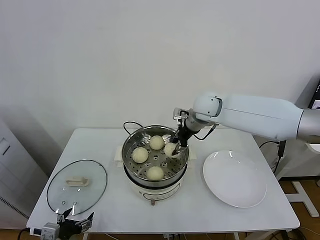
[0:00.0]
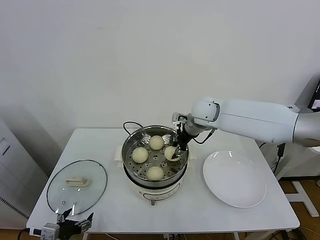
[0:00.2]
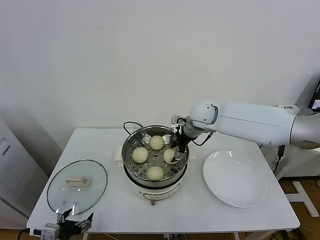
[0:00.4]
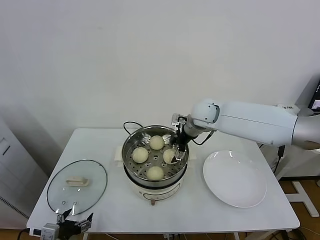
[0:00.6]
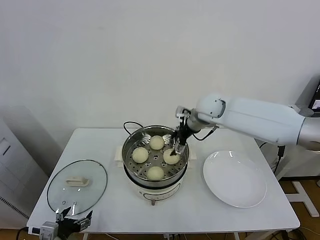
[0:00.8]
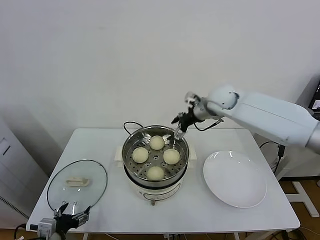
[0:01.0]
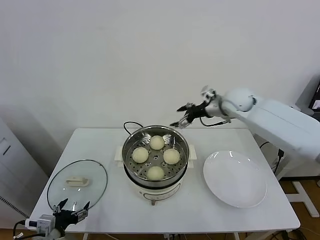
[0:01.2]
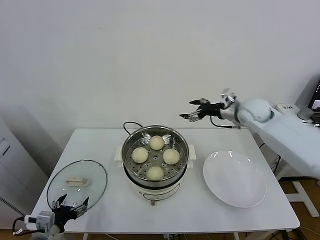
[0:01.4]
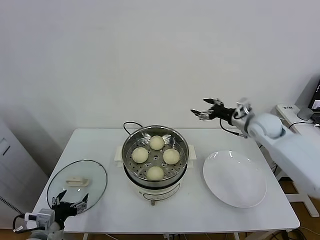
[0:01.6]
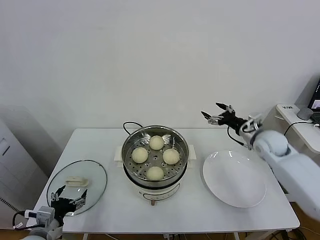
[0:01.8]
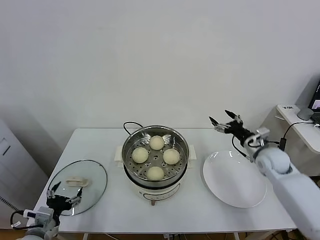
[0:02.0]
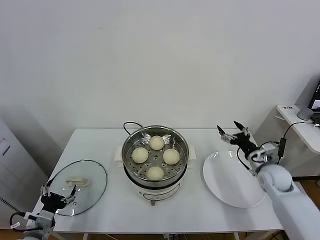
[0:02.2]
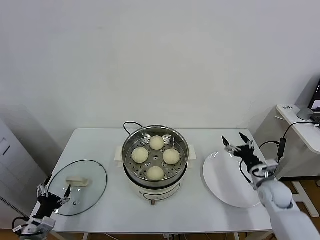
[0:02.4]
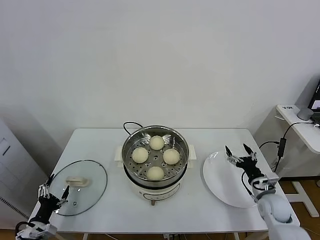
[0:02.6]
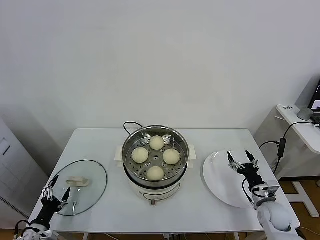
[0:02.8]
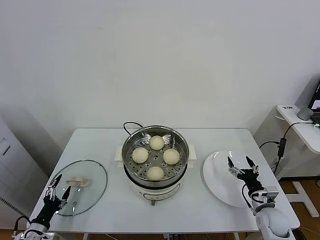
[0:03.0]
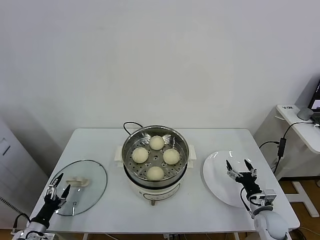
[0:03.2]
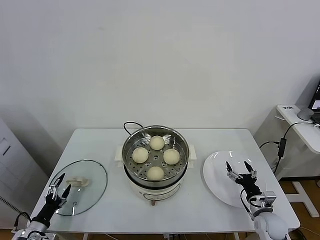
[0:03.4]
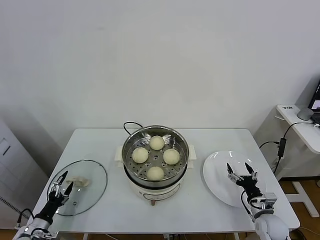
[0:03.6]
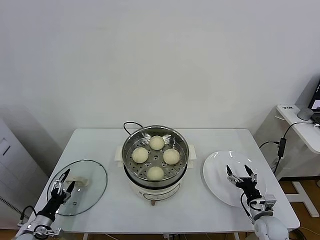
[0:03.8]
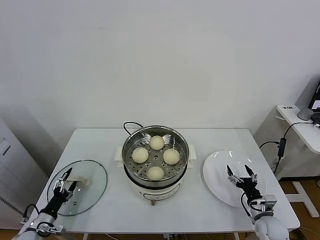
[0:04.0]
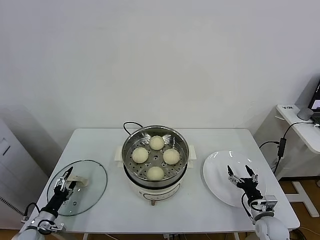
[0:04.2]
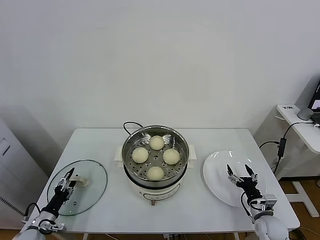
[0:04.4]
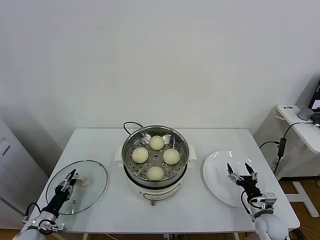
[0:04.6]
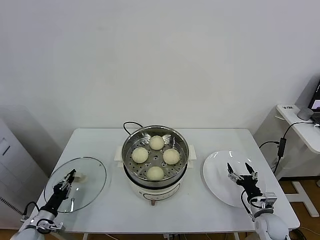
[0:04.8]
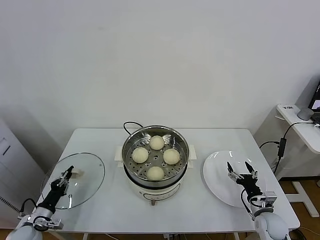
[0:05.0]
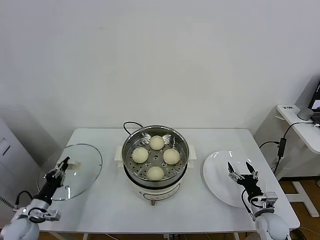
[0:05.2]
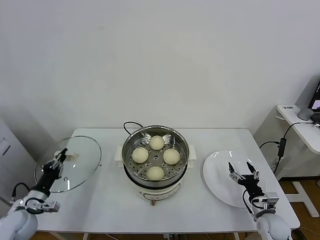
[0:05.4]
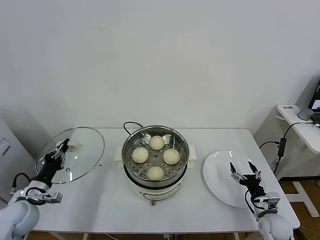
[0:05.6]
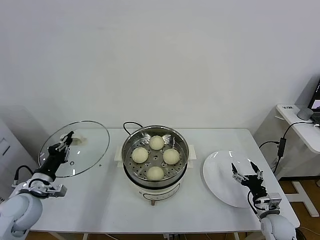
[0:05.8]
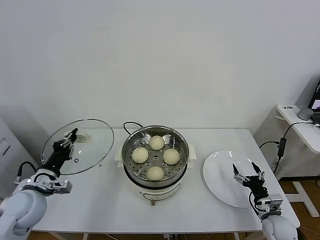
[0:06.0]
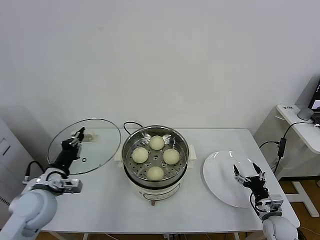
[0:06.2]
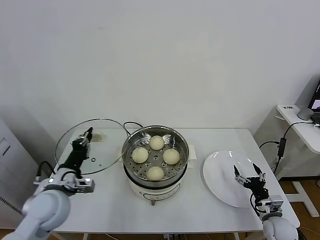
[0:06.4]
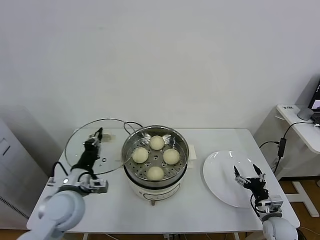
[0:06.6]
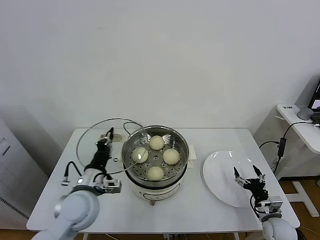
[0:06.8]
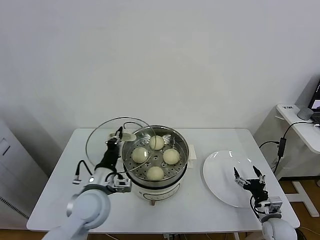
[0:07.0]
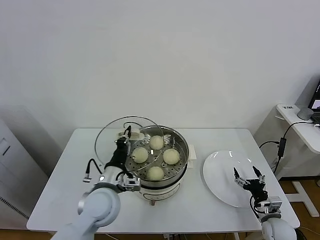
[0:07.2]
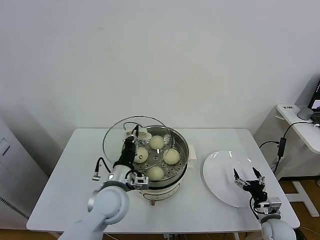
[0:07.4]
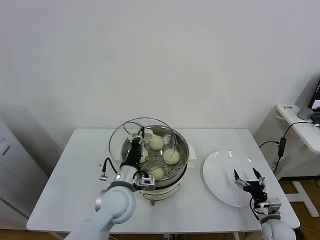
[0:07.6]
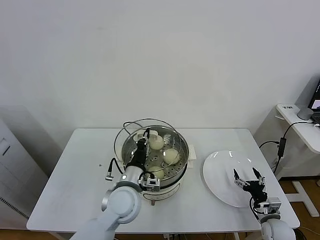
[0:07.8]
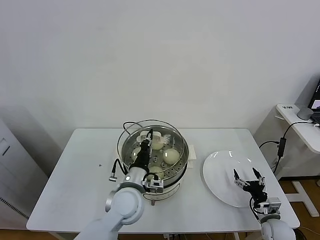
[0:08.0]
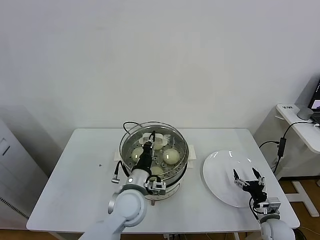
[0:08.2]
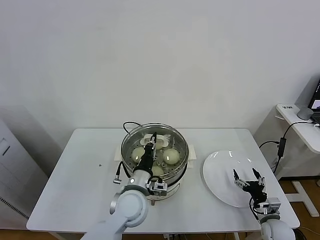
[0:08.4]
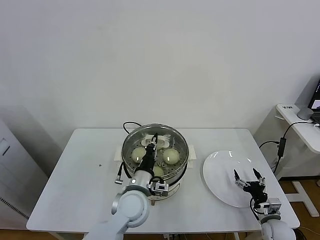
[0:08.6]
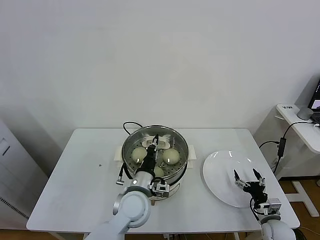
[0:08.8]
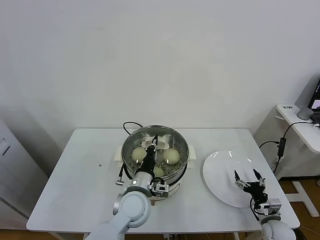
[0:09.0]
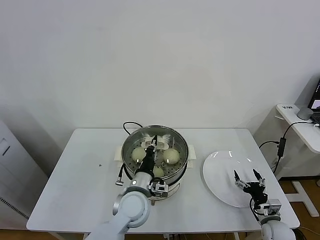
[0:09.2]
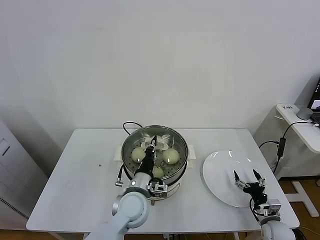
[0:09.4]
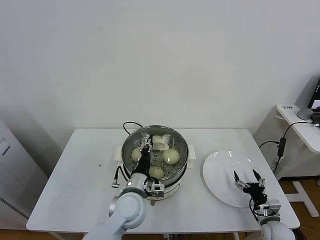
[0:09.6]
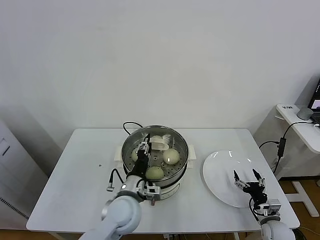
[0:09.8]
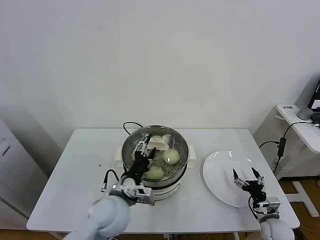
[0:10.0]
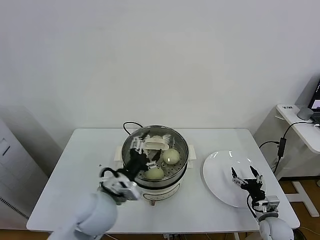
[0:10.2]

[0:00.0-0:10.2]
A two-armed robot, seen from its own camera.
Task of the whole recording: take steamed baozi put them in steamer.
Step, 0:00.8 to 0:05.0: Grasp the pot lid with left gripper.
Step, 0:05.2 to 0:10.0: Place the pot lid on the steamer with left gripper.
0:00.0 to 0:01.4: The right gripper shifts some 15 cm to the right, and opens up.
0:01.4 to 0:03.0: The right gripper travels downward and backward by roughly 40 cm, while the left gripper goes roughly 15 cm downward and to the left.
0:03.0 to 0:04.4: The left gripper ends up about 5 cm from where it was.
0:04.4 to 0:05.8: The left gripper travels upward by some 20 cm, and closes.
0:05.8 to 0:07.2: The left gripper moves to the right, roughly 25 cm.
0:07.2 to 0:08.8: The left gripper shifts about 10 cm to the right.
0:08.8 to 0:10.2: The left gripper moves to the left and upward, approximately 10 cm, and opens up.

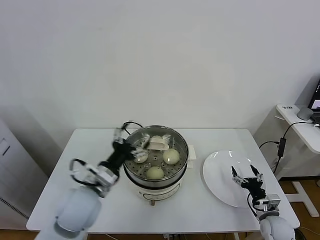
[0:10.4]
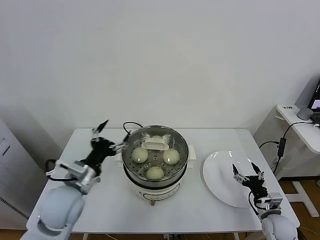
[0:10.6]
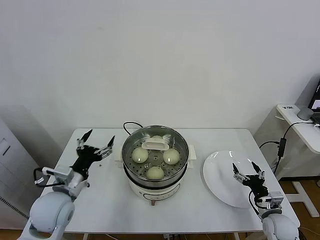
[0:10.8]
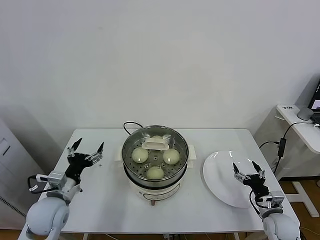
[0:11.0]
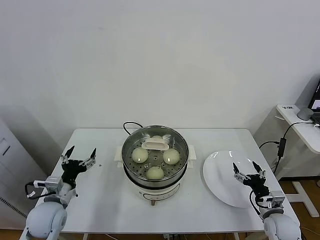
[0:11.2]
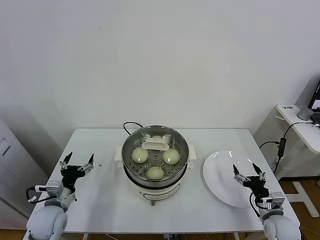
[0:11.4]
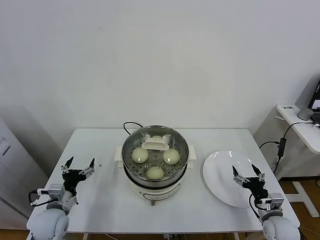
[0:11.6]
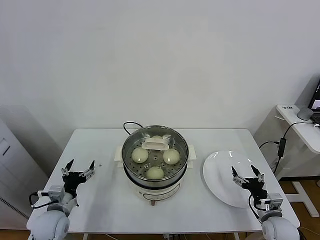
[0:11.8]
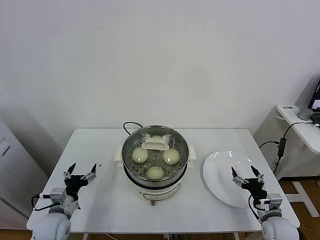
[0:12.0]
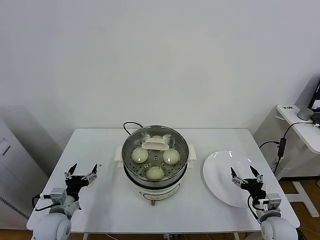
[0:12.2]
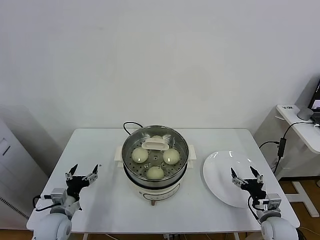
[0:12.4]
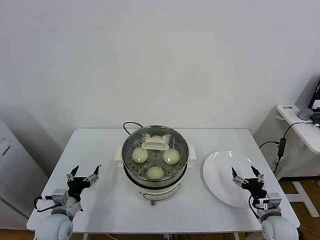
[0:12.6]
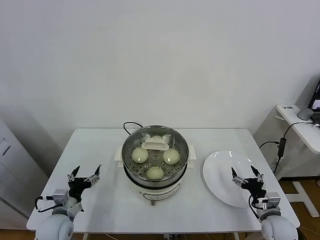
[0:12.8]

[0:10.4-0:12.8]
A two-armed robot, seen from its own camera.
Task of the whole recording: take steamed baozi put them in steamer.
0:10.4 to 0:11.6: The left gripper goes approximately 20 cm to the left and downward.
0:11.6 to 0:12.8: The grippers stay close to where they were, moving slightly.

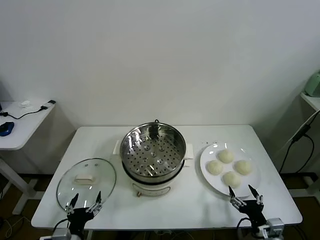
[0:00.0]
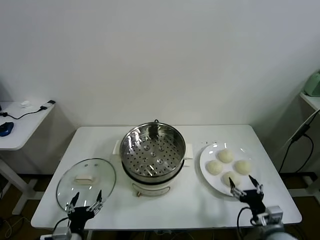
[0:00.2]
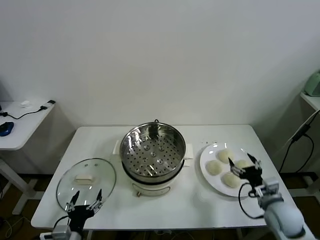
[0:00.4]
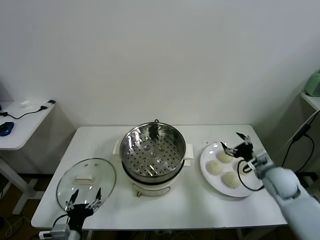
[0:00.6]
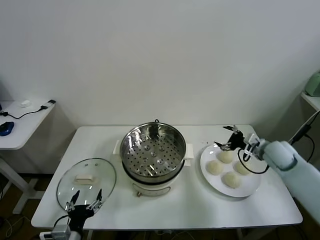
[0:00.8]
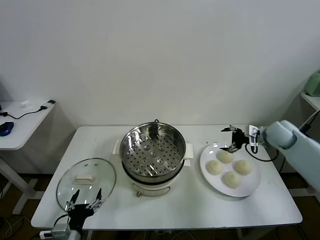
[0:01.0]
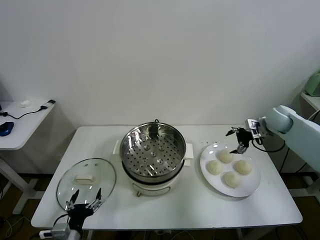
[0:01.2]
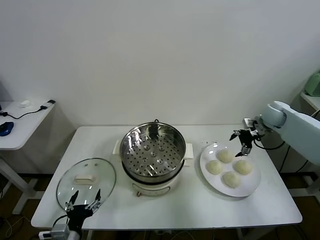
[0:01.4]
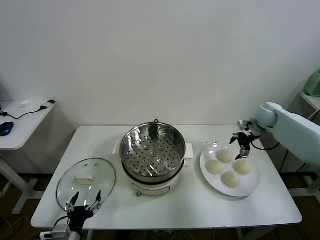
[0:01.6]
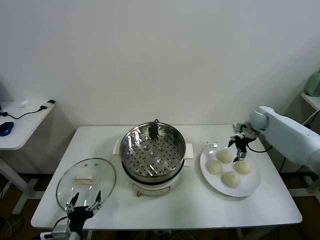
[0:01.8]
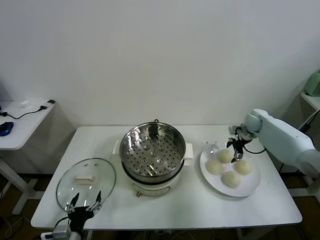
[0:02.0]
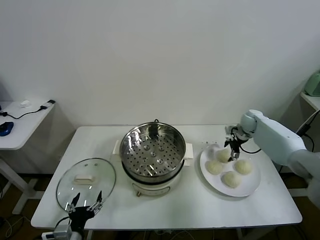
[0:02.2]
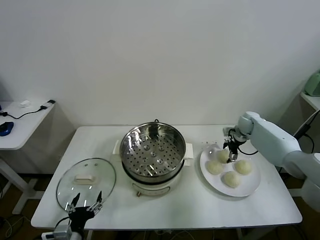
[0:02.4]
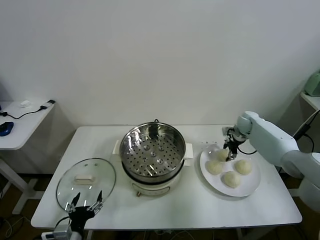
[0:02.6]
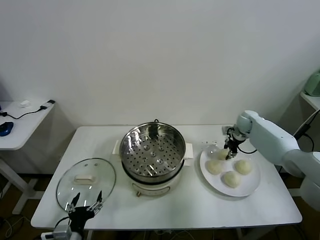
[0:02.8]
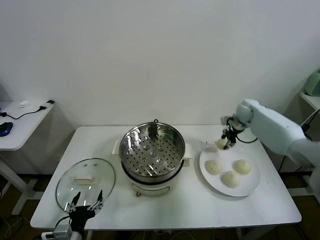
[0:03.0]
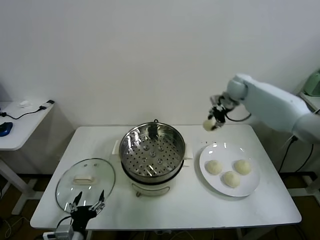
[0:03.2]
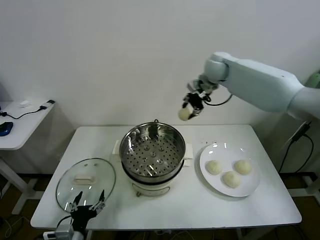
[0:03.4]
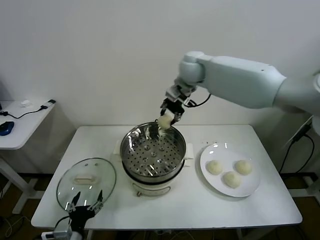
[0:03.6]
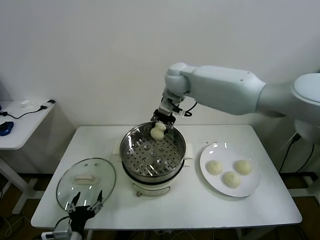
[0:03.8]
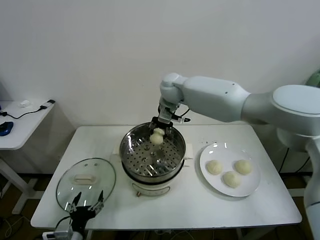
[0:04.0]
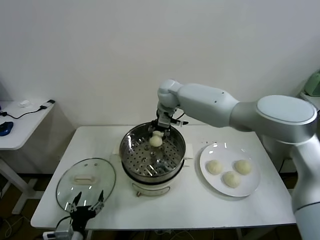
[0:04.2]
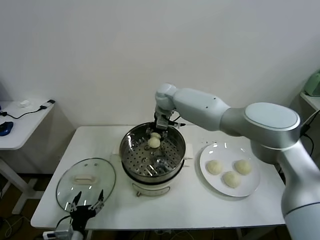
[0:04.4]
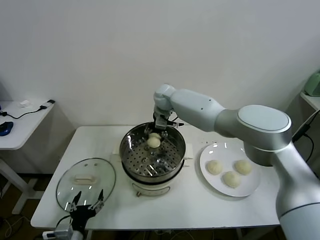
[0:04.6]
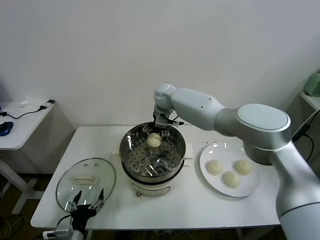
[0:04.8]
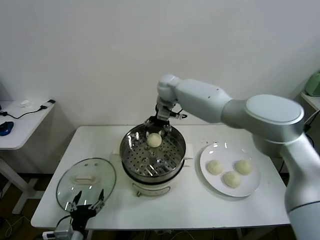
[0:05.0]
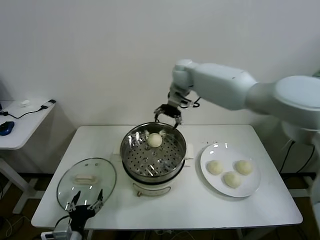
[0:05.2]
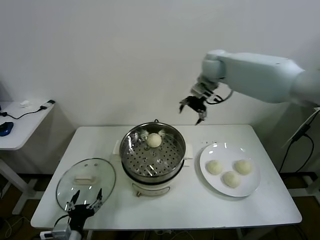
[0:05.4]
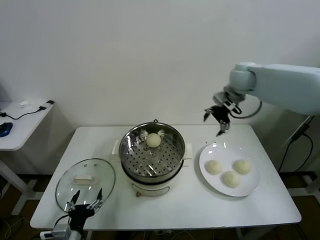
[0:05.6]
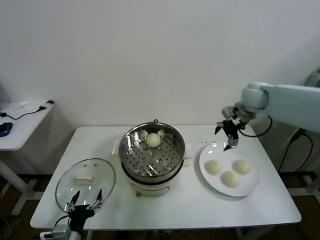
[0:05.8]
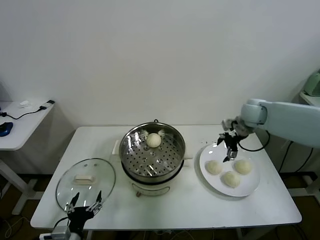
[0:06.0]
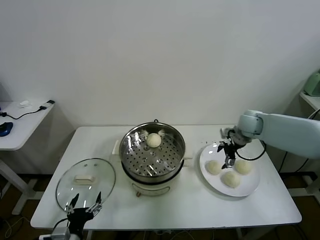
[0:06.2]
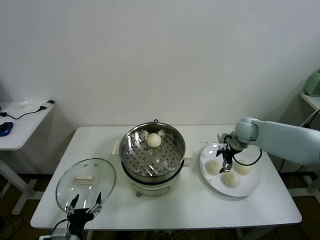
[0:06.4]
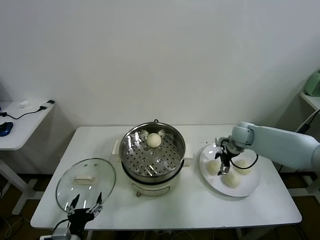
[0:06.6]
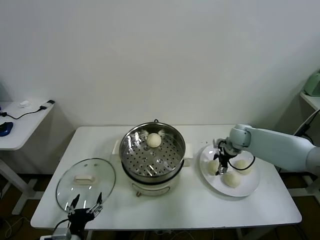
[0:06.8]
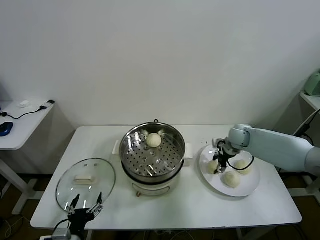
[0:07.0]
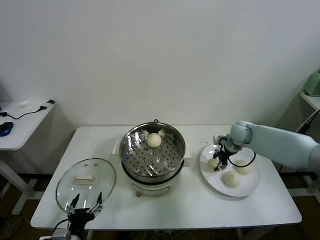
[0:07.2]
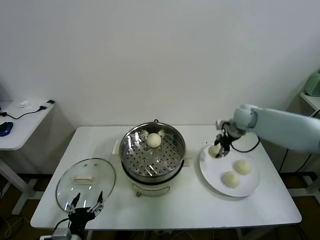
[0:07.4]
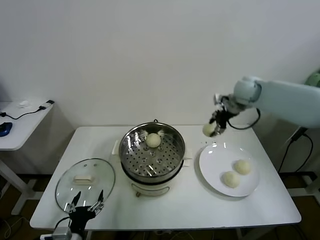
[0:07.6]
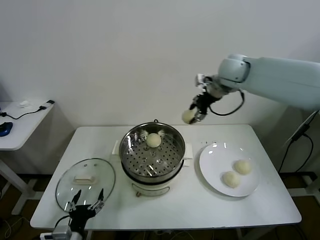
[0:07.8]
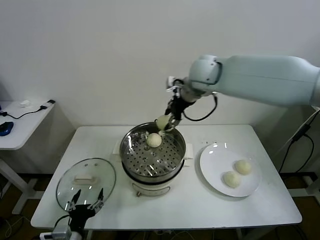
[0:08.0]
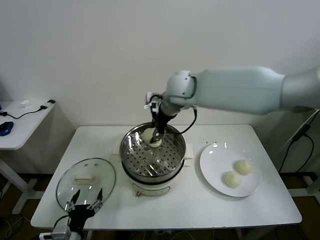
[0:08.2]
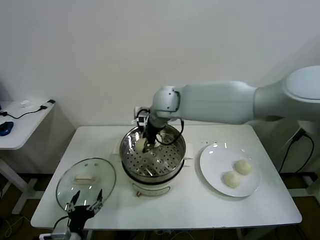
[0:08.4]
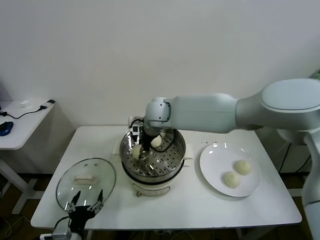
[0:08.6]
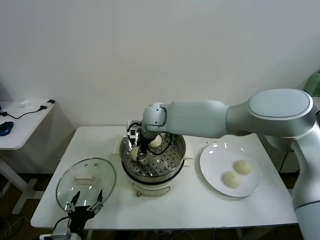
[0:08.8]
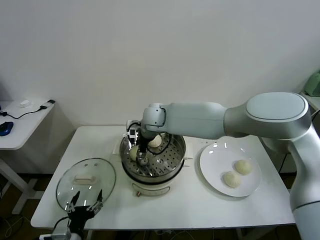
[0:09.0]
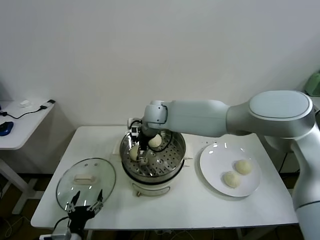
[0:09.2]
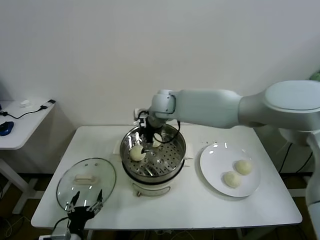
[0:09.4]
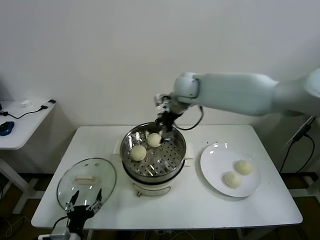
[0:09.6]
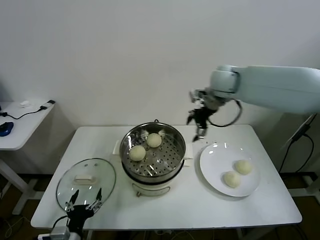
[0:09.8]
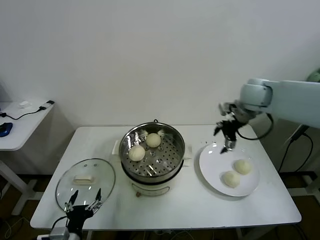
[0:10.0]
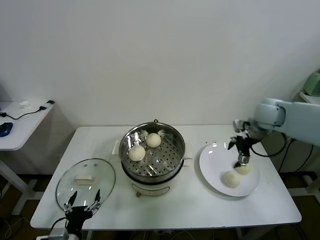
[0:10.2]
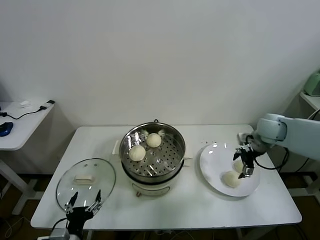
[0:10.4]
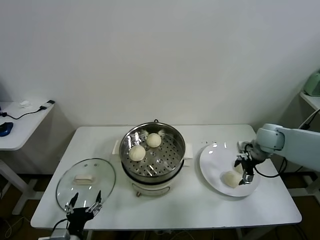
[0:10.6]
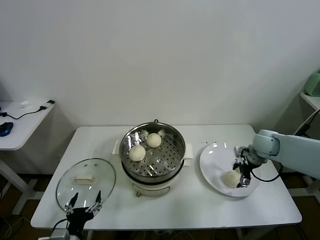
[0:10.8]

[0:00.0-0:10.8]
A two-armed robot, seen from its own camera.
Task of the whole recording: take steamed baozi put them in steamer.
Step, 0:00.0 to 0:02.6: Grasp the baozi in the plate with right gripper.
Step, 0:02.8 to 0:04.8: Place the baozi on the steamer with right gripper.
Step, 0:05.0 to 0:07.0: Grasp the baozi in the plate with right gripper.
Step, 0:07.2 to 0:09.2: Place the baozi on the steamer with right gripper.
0:01.6 to 0:03.0: The right gripper heads to the left, covering some 5 cm, and closes up.
0:03.0 to 0:04.6: The right gripper is displaced to the left by some 35 cm, and opens its fingers.
0:04.6 to 0:06.2: The right gripper heads to the right, covering roughly 30 cm.
0:06.2 to 0:07.8: The right gripper moves upward and to the left, about 25 cm, and closes.
0:07.8 to 0:09.2: The right gripper goes approximately 25 cm to the left and downward, and opens up.
0:09.2 to 0:10.8: The right gripper heads to the right, covering roughly 40 cm.
